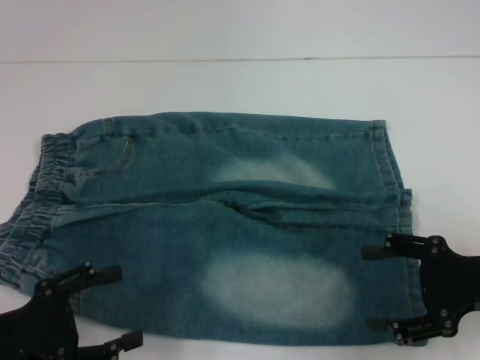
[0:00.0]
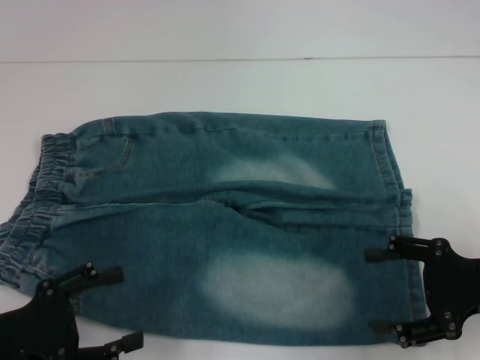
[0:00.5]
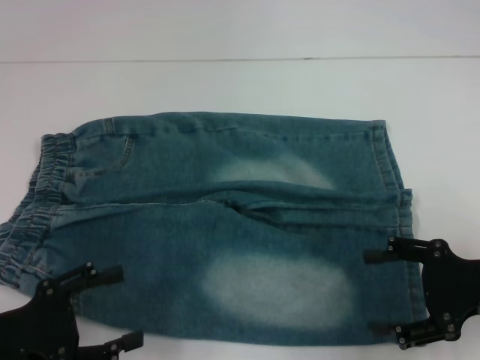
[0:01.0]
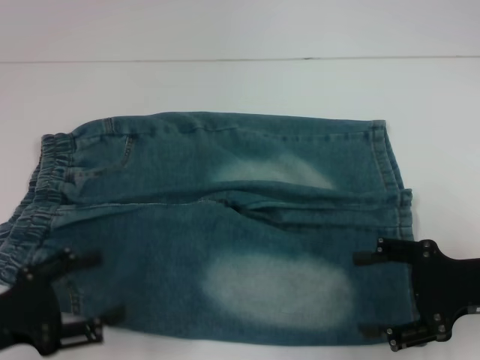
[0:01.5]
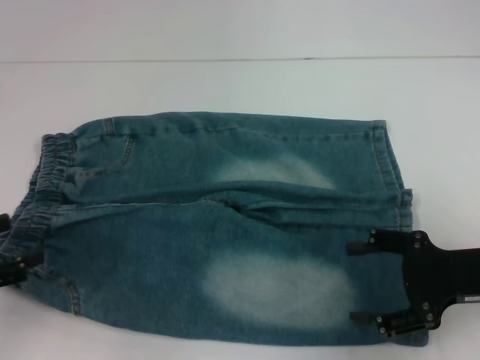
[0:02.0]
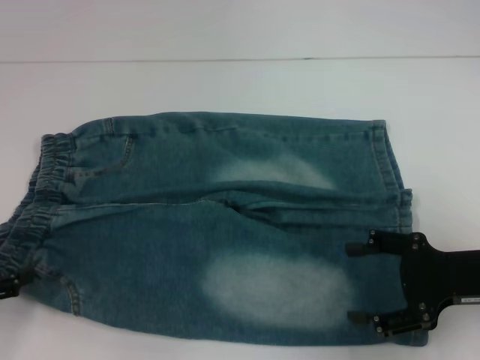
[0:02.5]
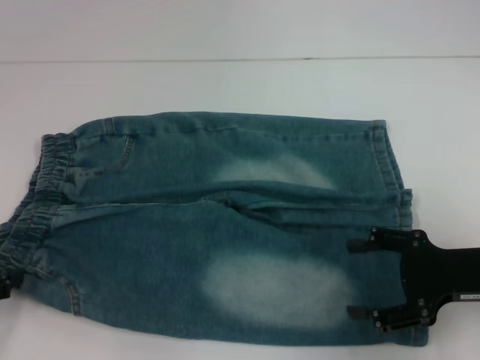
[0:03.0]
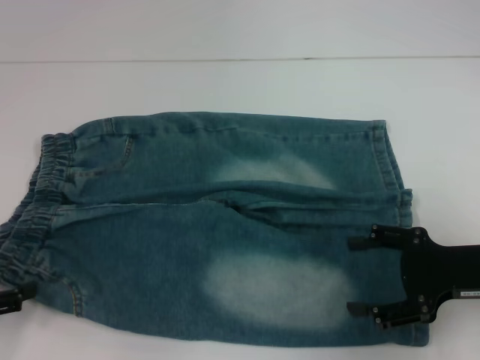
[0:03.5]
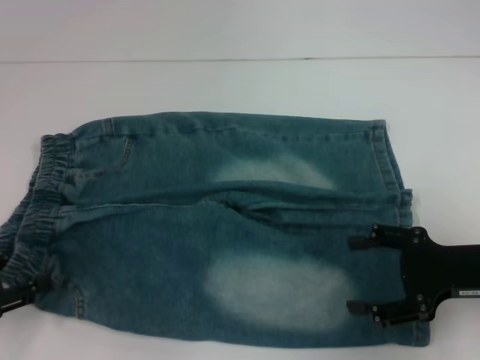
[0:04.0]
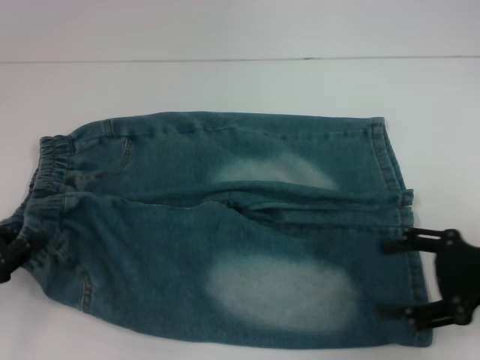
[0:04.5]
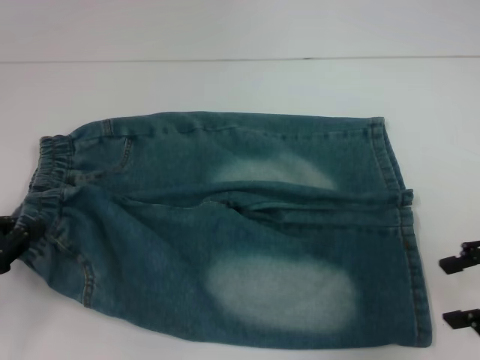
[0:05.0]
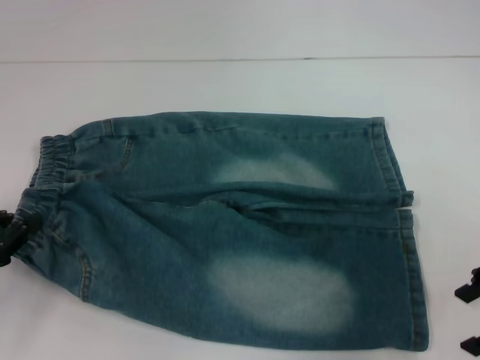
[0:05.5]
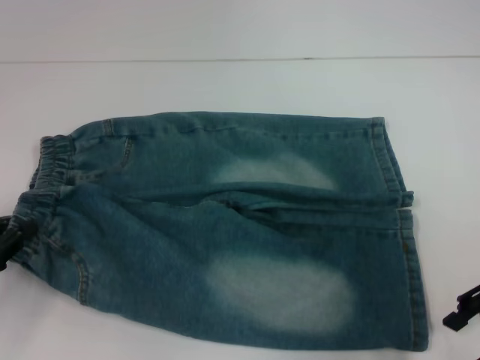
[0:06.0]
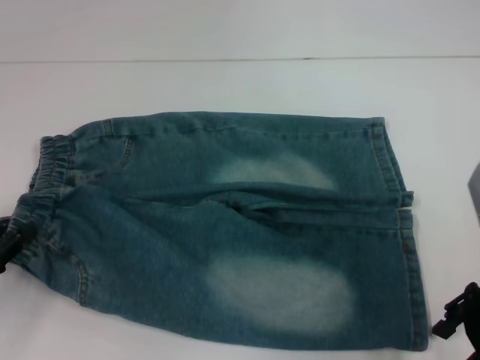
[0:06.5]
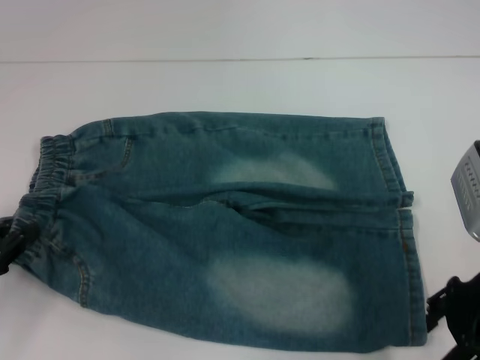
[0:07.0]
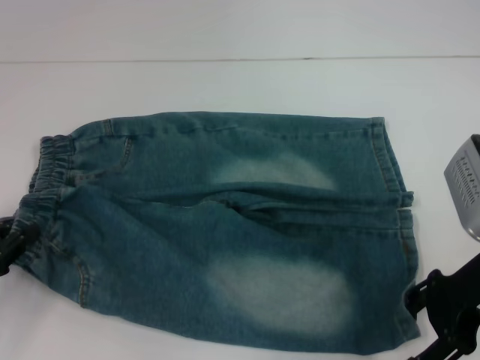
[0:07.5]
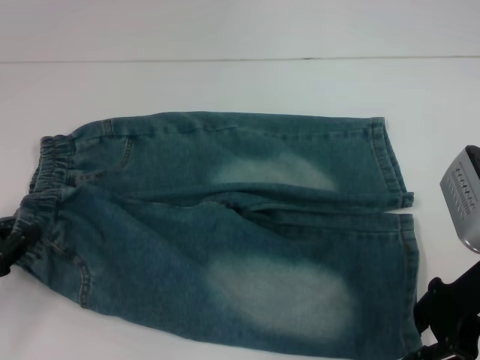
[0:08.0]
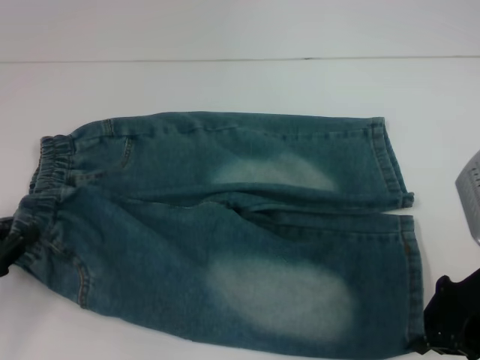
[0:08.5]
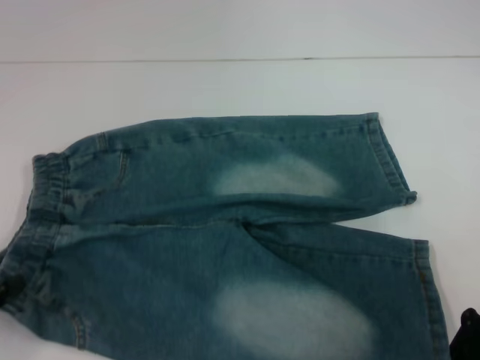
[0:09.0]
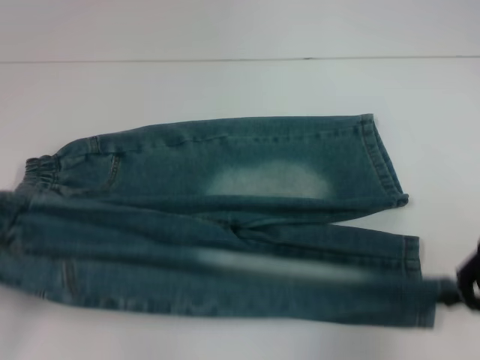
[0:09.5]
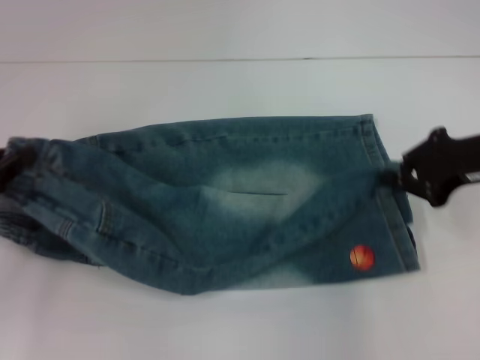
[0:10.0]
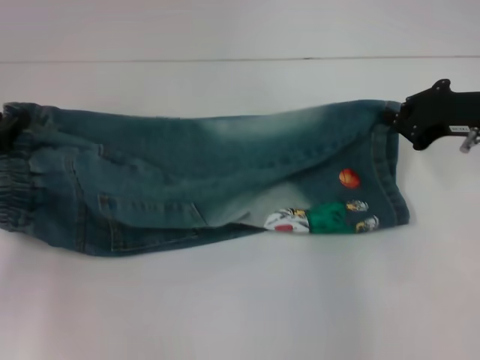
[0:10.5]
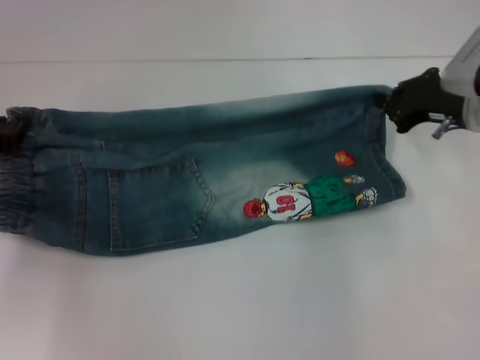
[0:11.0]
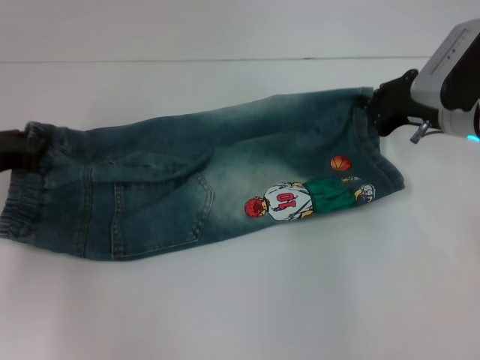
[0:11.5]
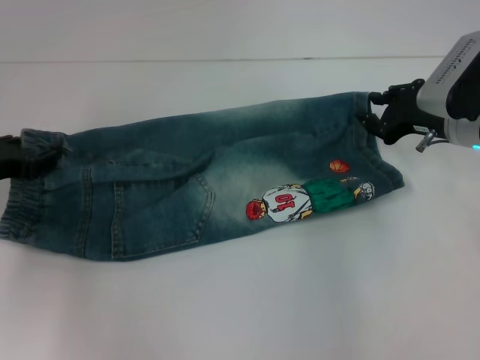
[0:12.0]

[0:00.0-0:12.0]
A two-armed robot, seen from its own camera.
Step, 0:00.0 to 0:04.5: Hold the lower left waistband with your left hand.
Step, 0:05.0 to 0:08.5: Grab the lower right pant leg with your right hand.
0:00.0 to 0:02.0: The left gripper moves to the left, about 5 cm.
0:02.0 to 0:04.0: The grippers stay close to where they were, moving slightly.
0:04.0 to 0:06.0: The left gripper closes, while the right gripper is displaced upward by some 5 cm.
0:06.0 to 0:08.0: There are only small adjustments of the grippers.
0:08.0 to 0:10.0: The left gripper ends up some 5 cm from where it was. The right gripper travels forward by about 5 cm, and closes up.
0:10.0 to 0:12.0: The left gripper heads forward, covering approximately 5 cm. The right gripper heads downward and forward, covering some 10 cm.

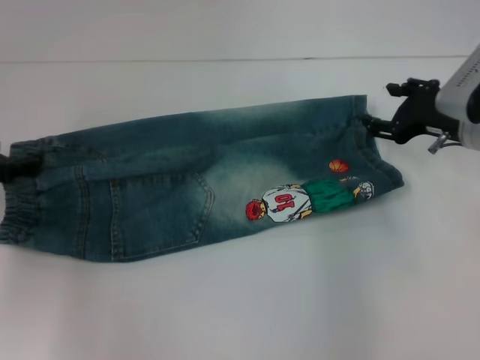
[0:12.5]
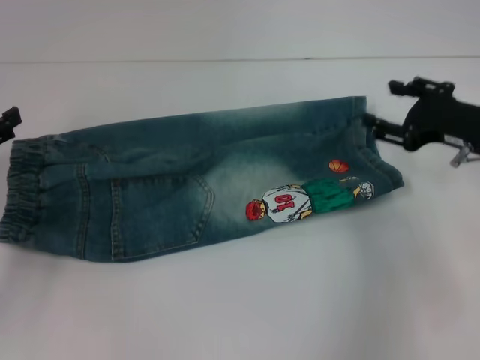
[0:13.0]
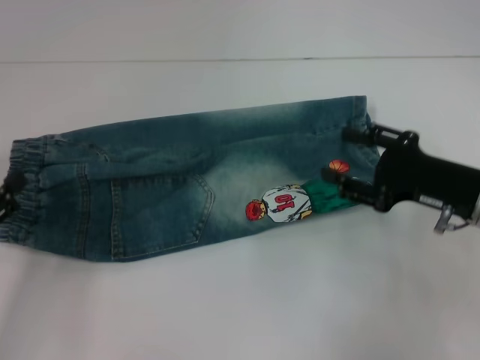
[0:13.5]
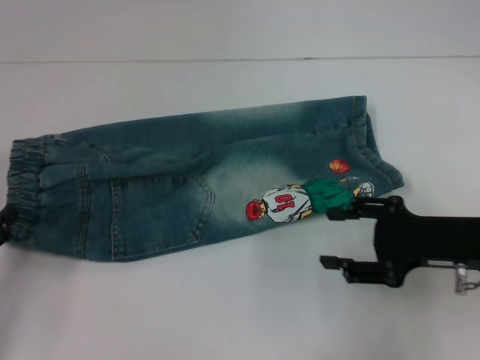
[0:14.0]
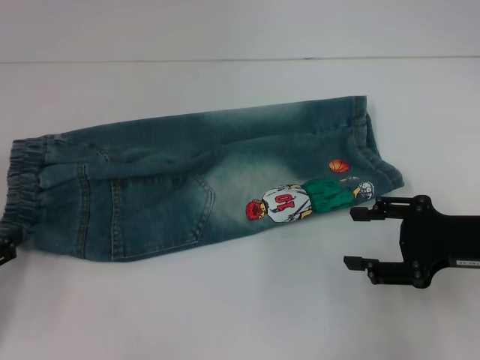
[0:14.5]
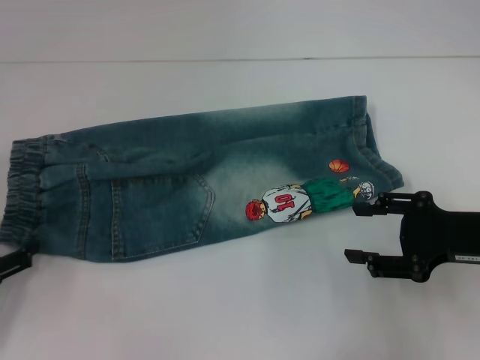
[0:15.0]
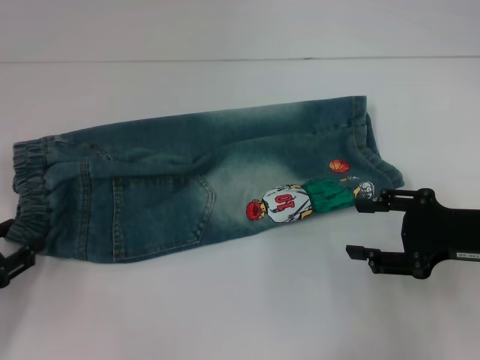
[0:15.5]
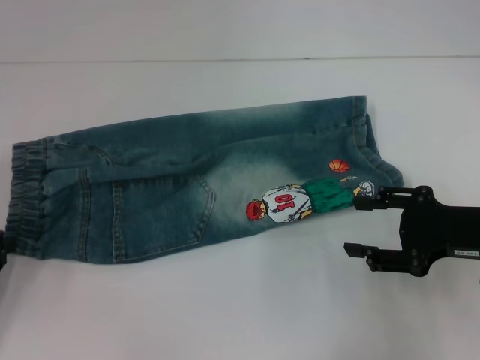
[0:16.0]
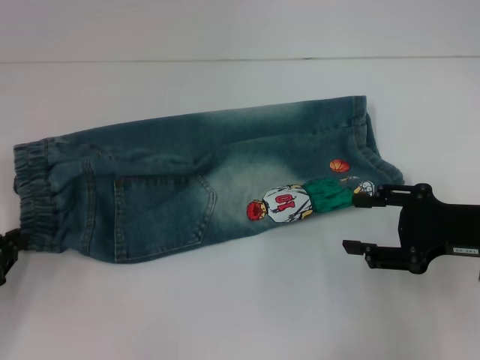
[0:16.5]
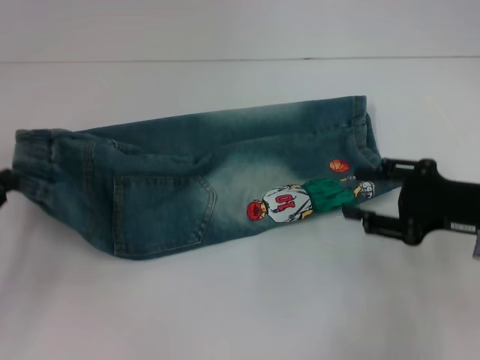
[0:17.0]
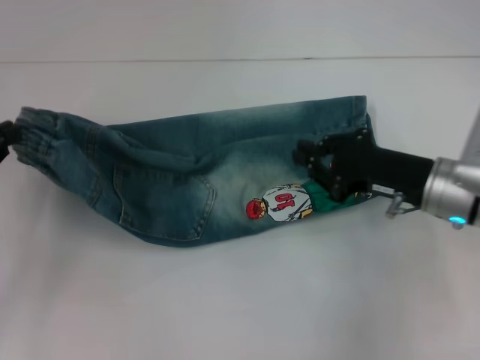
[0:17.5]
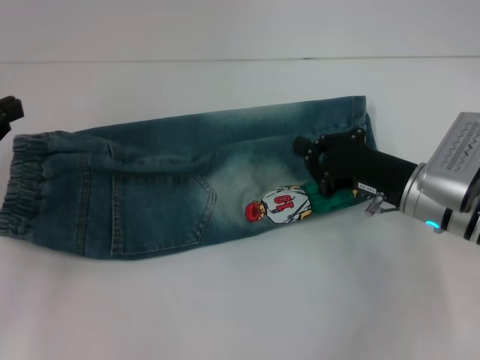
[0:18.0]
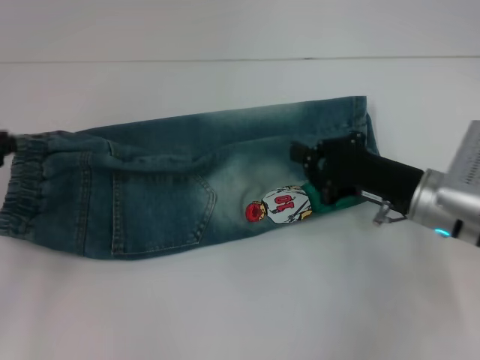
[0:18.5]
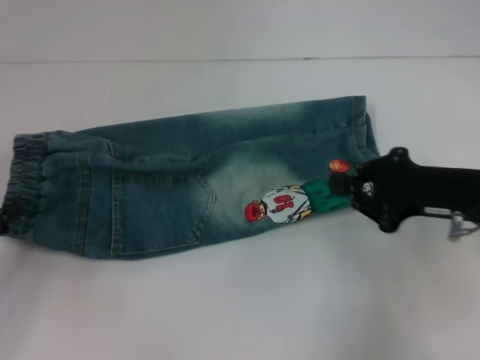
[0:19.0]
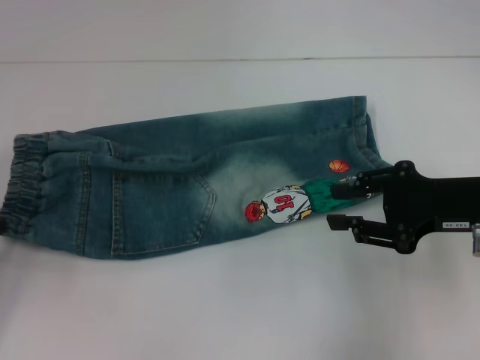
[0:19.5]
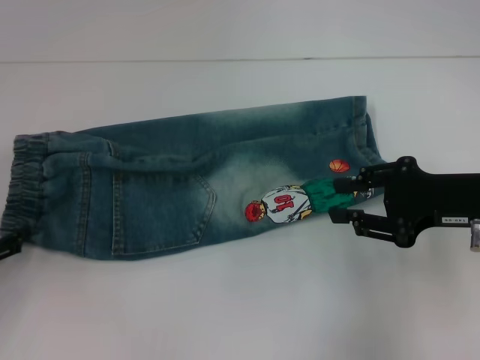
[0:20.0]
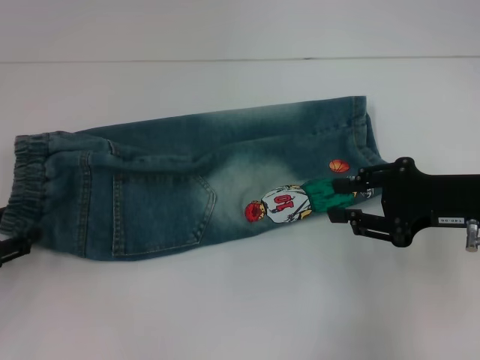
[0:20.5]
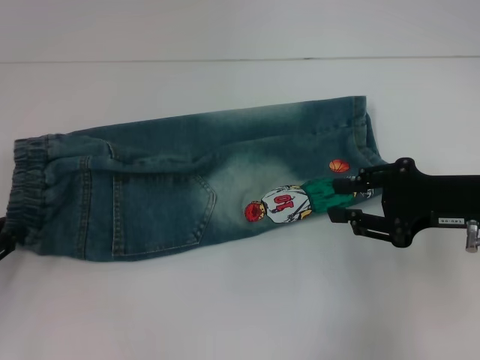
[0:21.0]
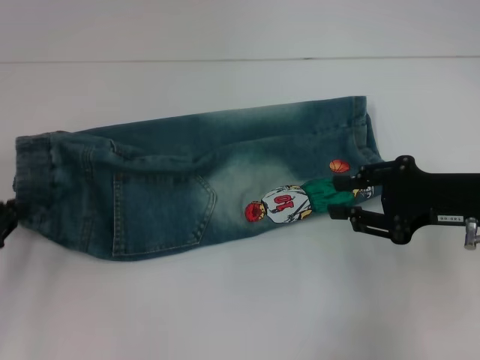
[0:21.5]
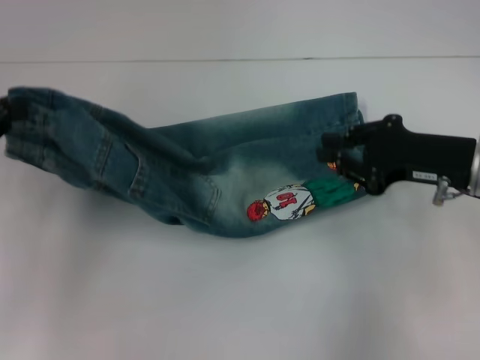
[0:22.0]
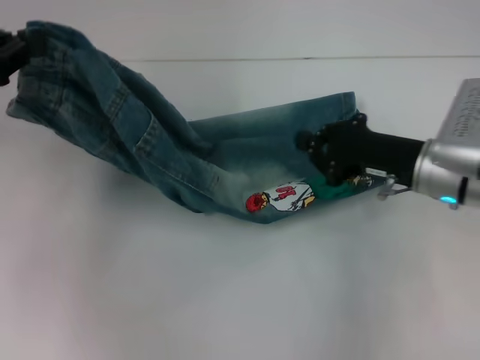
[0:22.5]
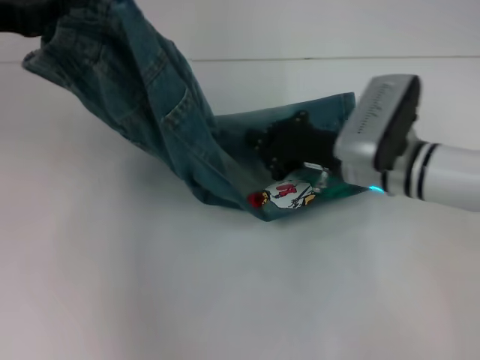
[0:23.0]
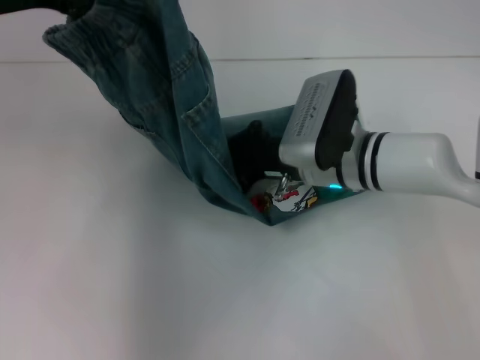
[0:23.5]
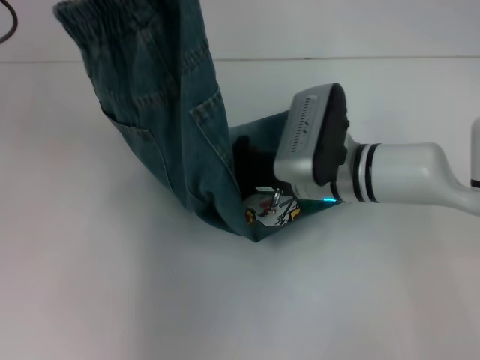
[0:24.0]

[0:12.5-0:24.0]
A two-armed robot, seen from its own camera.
Step, 0:13.0 to 0:21.0: Hold the waistband with your left hand.
0:12.5 to 0:14.5: The right gripper heads backward, covering about 10 cm. Meanwhile the left gripper shifts about 15 cm backward and downward.
0:14.5 to 0:16.5: The left gripper closes its fingers.
0:16.5 to 0:18.5: The left gripper goes about 10 cm upward, while the right gripper is displaced to the left by roughly 5 cm, and closes its fingers.
0:18.5 to 0:20.0: The left gripper shifts some 5 cm downward, and opens its fingers; the right gripper goes about 10 cm upward and to the right, and opens its fingers.
0:20.0 to 0:22.0: The left gripper shifts about 10 cm upward, and closes.
0:22.0 to 0:24.0: The left gripper goes about 15 cm upward, to the right and forward. Meanwhile the right gripper is displaced to the left by approximately 15 cm, and closes its fingers.

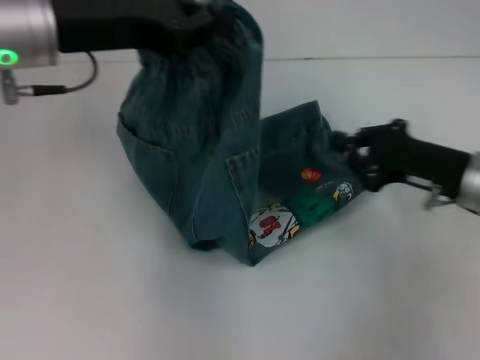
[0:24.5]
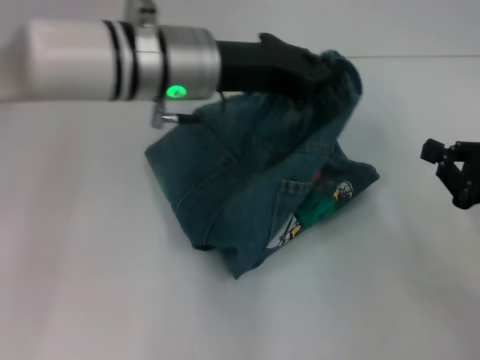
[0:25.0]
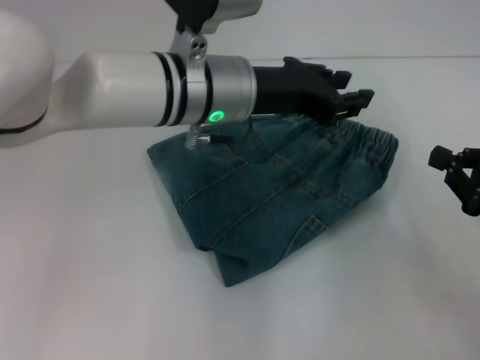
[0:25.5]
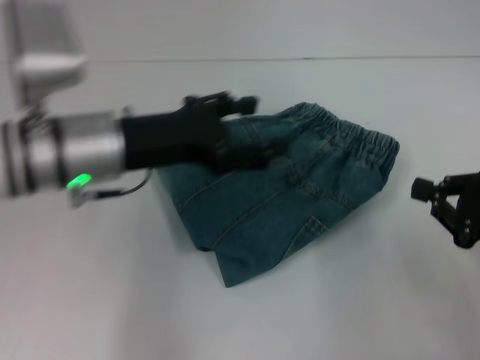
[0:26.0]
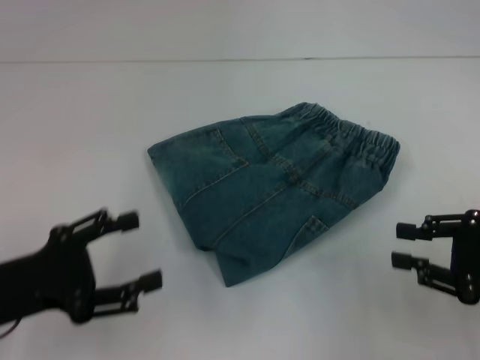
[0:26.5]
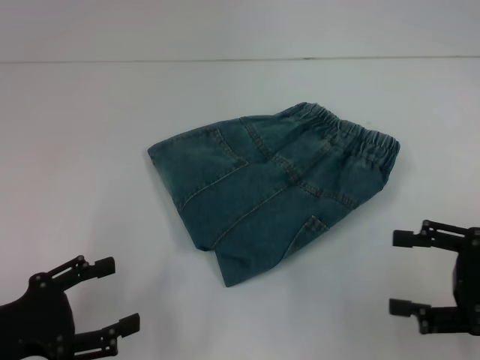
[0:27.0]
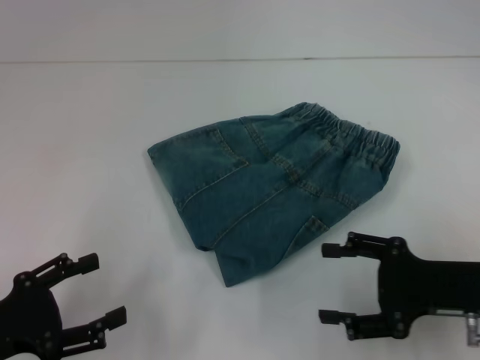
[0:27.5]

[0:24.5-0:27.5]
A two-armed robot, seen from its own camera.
Step, 0:24.5 to 0:25.5: Fold to the right with your left hand.
0:24.5 to 0:26.0: The left gripper travels downward by some 10 cm, travels to the right and back again, approximately 15 cm each way, and opens its fingers; the right gripper shifts about 10 cm to the right and backward.
0:26.0 to 0:27.5: The left gripper heads backward, to the left and downward, covering some 25 cm. Meanwhile the right gripper moves to the left, approximately 5 cm, and opens its fingers.
